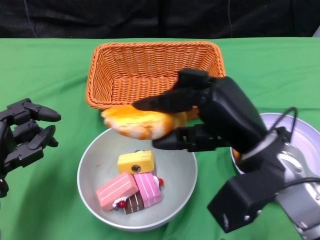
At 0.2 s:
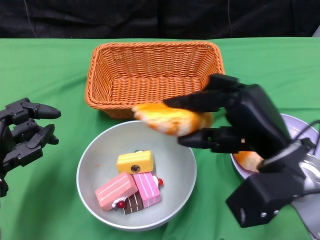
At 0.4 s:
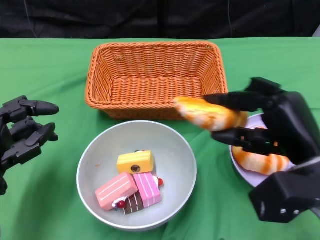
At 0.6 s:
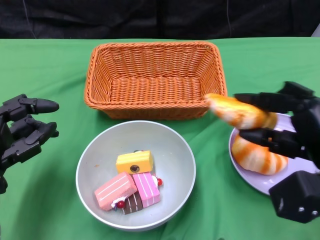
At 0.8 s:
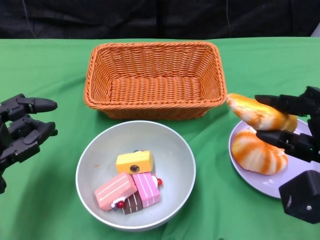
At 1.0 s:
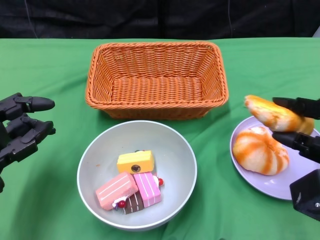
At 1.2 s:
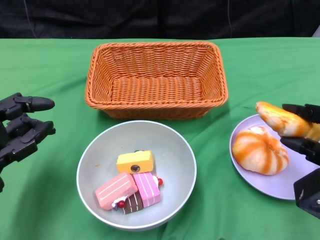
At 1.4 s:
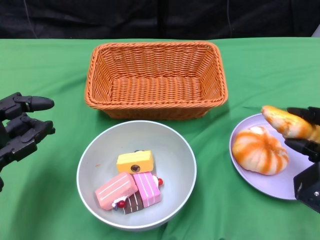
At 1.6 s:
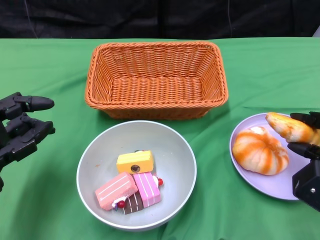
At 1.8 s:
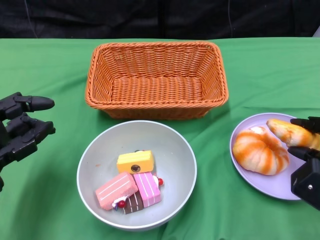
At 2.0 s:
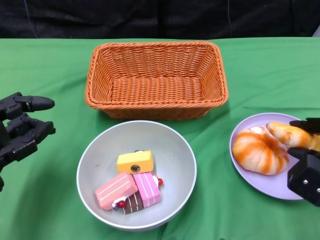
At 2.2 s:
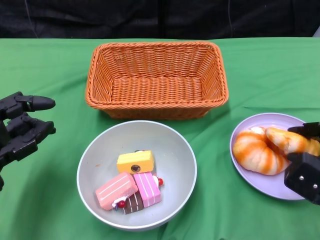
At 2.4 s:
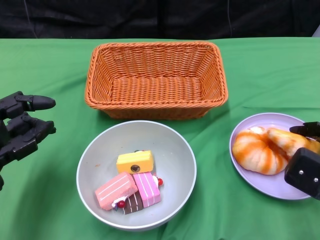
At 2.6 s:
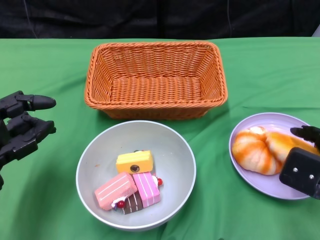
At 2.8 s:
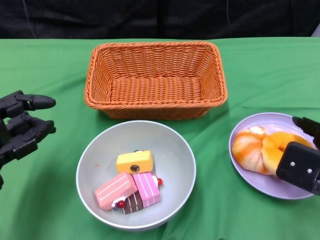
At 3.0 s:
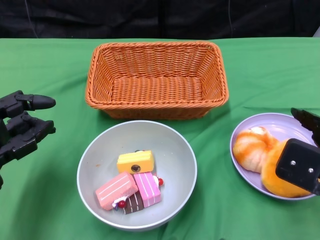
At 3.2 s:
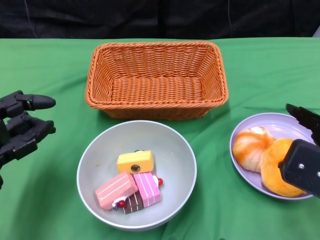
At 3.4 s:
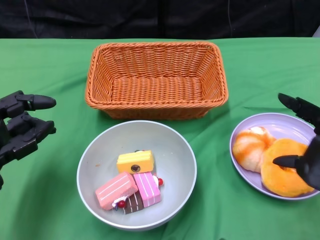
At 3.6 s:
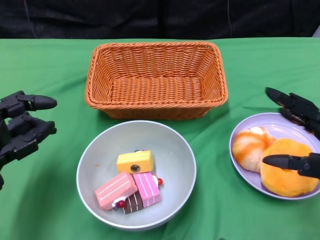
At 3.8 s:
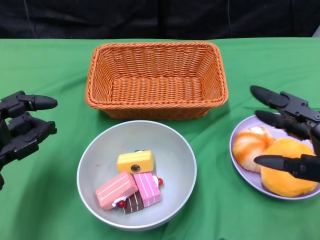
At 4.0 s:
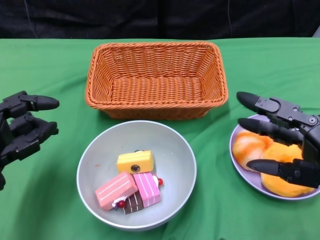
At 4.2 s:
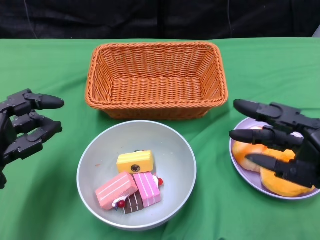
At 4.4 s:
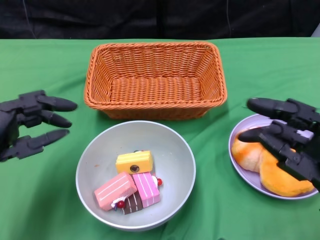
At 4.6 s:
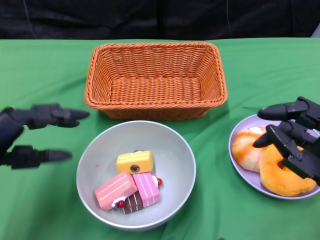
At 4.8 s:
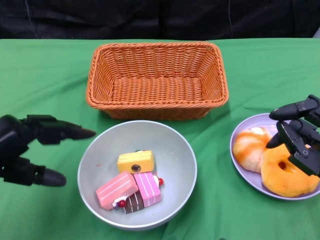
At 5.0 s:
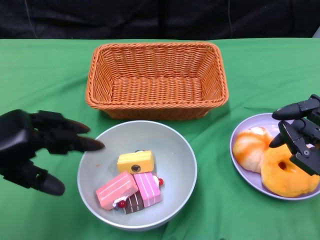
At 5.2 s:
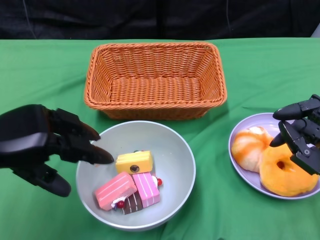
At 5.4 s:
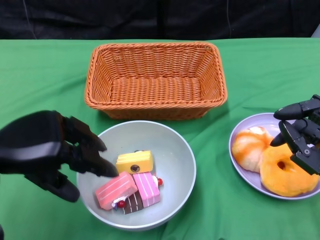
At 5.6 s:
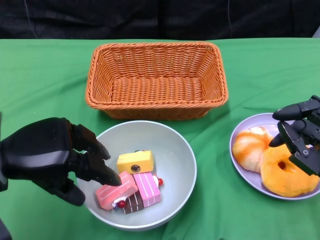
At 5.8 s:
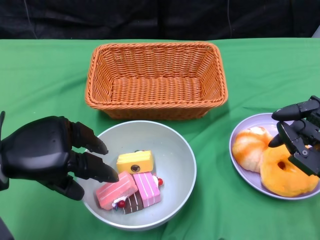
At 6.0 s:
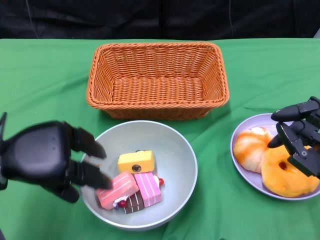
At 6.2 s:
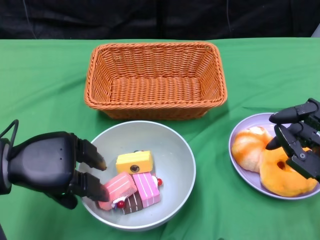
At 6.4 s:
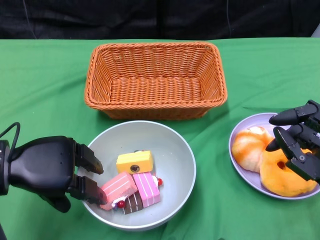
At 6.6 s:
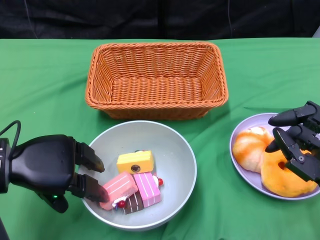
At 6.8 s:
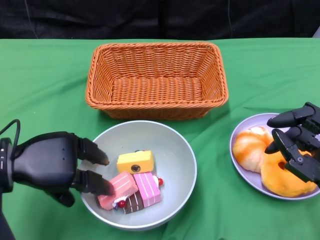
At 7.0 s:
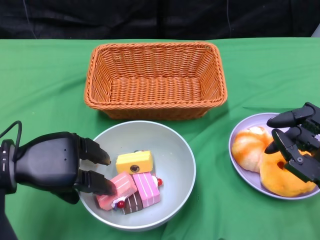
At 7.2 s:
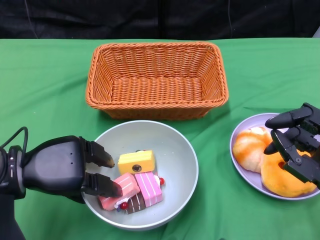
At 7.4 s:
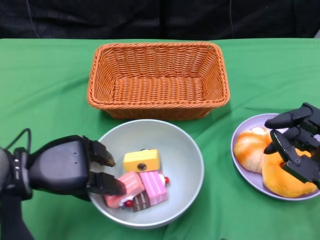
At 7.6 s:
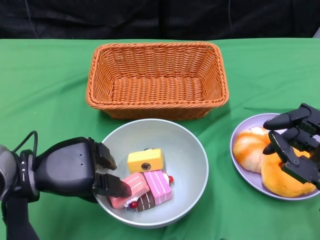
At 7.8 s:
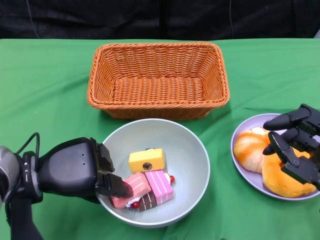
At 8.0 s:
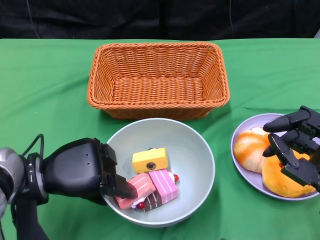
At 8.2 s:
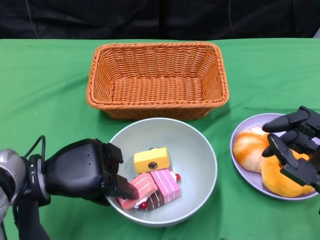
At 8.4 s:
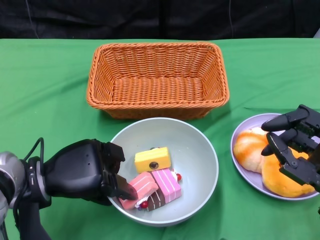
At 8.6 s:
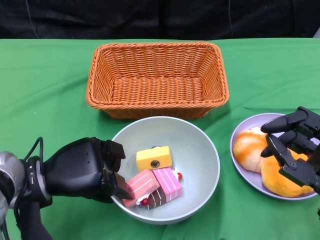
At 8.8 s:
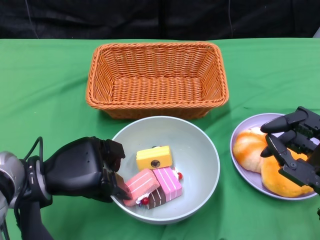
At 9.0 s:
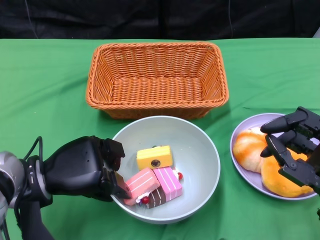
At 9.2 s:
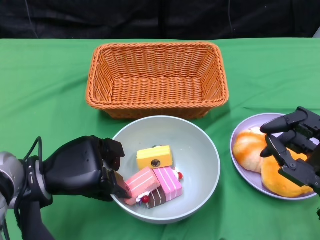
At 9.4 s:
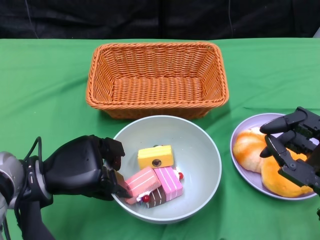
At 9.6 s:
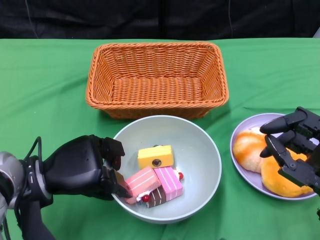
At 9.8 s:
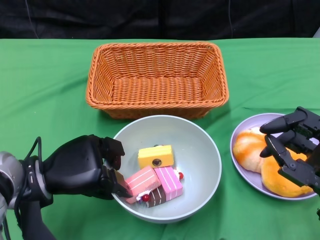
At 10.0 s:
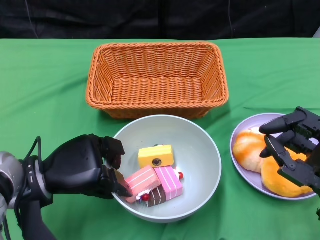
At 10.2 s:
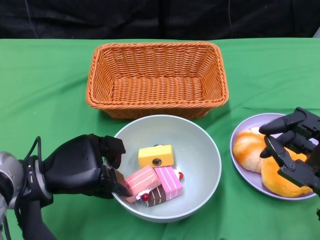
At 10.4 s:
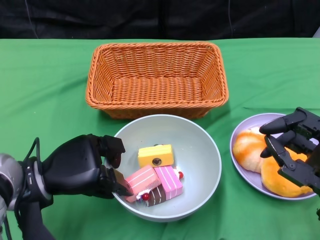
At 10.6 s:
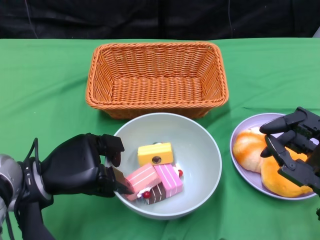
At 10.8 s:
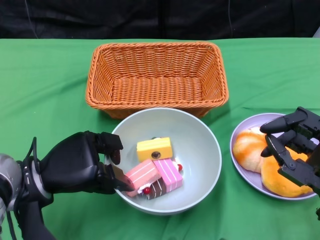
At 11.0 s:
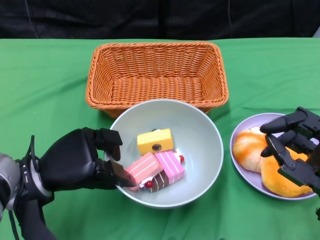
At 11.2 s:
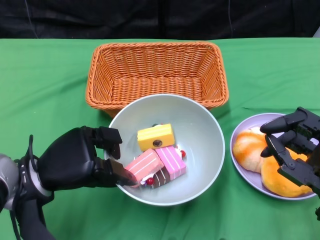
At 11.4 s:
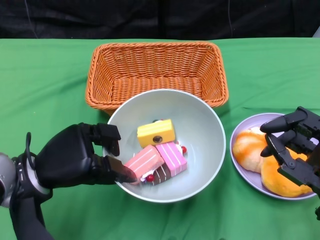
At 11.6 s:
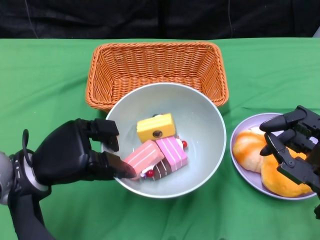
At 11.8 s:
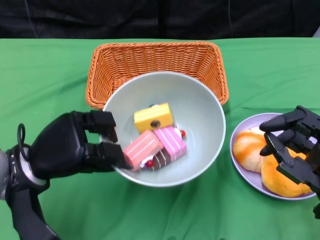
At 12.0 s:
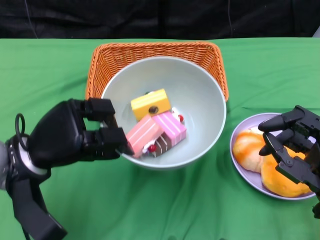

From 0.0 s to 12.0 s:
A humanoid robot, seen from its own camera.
Step, from 0.0 s to 3.4 s: Pick up the bread with the right gripper and place it on the plate.
Step, from 3.6 s to 9.6 s: Grasp the bowl with the left gripper.
From 0.0 s to 1.6 s: The right hand shifts approximately 15 cm to the right and downward.
From 1.6 s to 3.0 s: The right hand shifts roughly 5 cm upward.
From 6.0 s to 7.6 s: The left hand moves downward, roughly 5 cm.
From 7.6 s to 9.0 s: The hands move only a little.
From 9.0 s to 10.4 s: Both hands stay about where they are.

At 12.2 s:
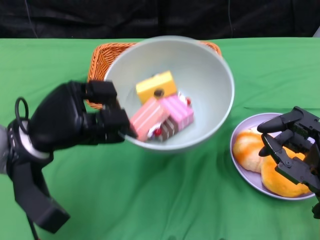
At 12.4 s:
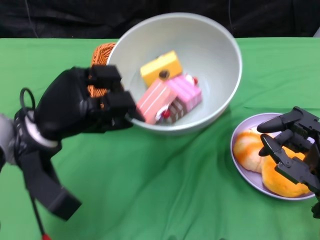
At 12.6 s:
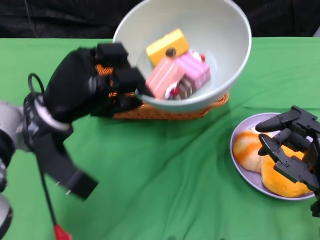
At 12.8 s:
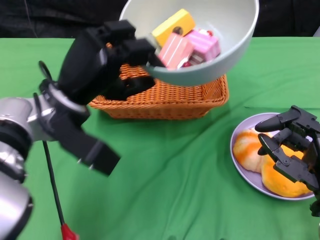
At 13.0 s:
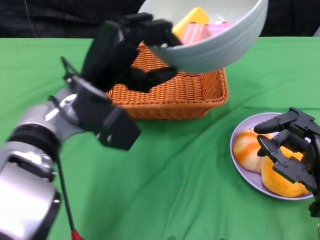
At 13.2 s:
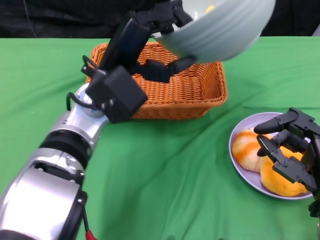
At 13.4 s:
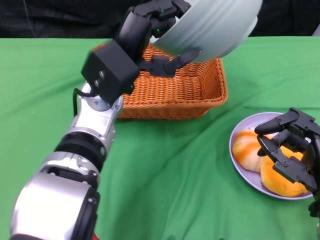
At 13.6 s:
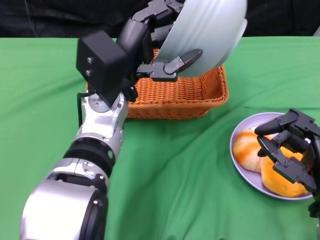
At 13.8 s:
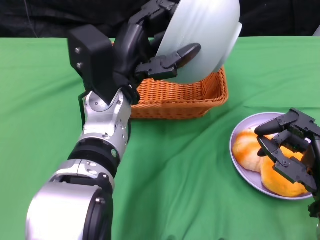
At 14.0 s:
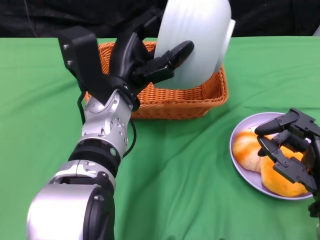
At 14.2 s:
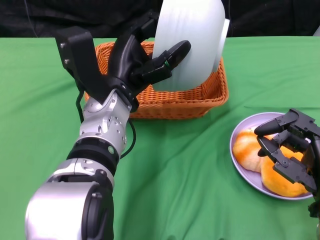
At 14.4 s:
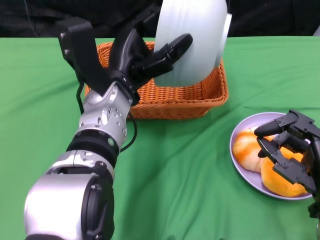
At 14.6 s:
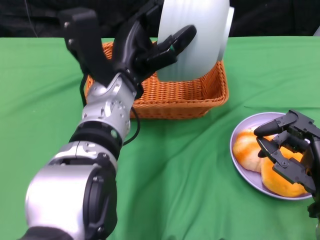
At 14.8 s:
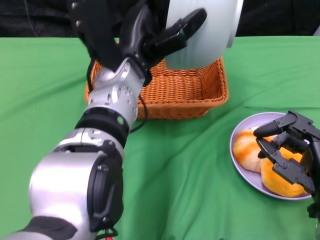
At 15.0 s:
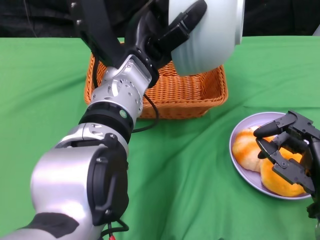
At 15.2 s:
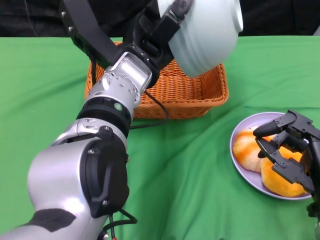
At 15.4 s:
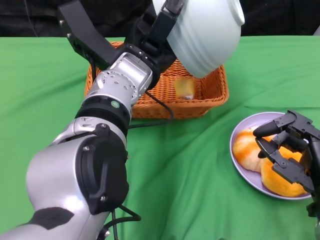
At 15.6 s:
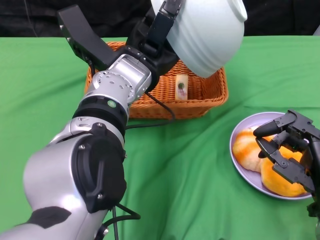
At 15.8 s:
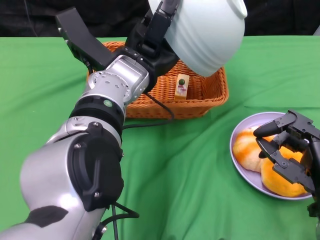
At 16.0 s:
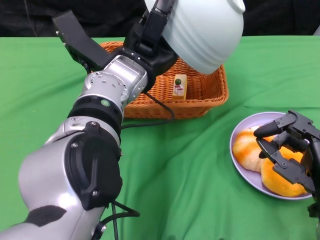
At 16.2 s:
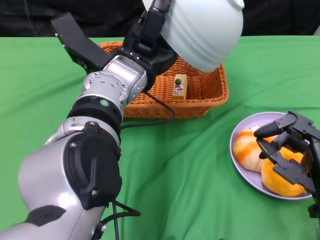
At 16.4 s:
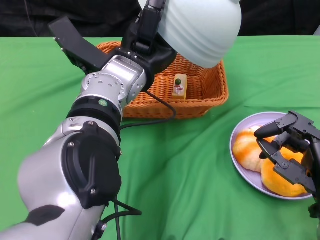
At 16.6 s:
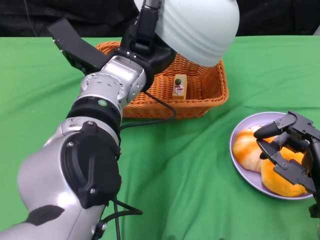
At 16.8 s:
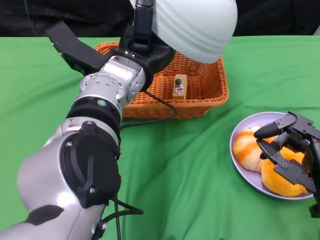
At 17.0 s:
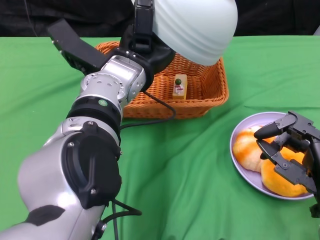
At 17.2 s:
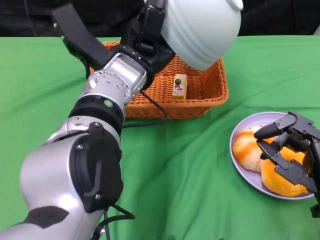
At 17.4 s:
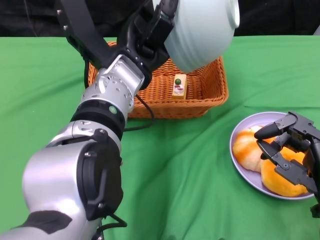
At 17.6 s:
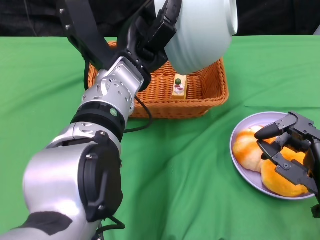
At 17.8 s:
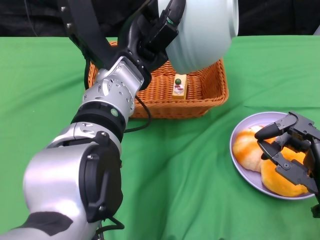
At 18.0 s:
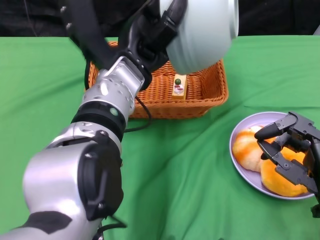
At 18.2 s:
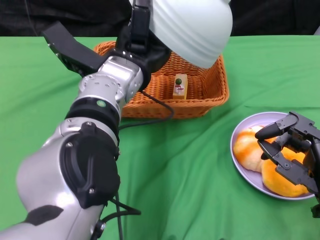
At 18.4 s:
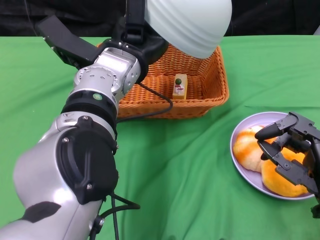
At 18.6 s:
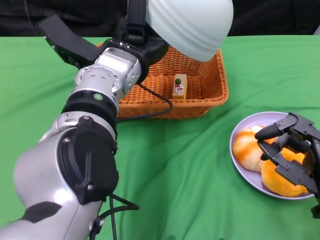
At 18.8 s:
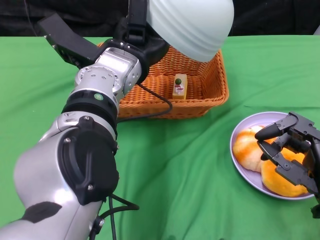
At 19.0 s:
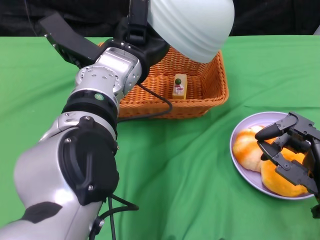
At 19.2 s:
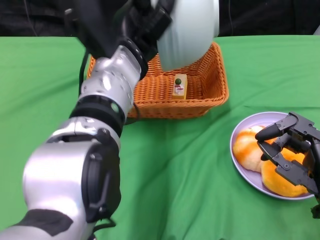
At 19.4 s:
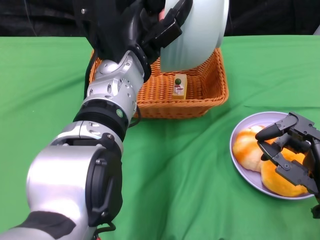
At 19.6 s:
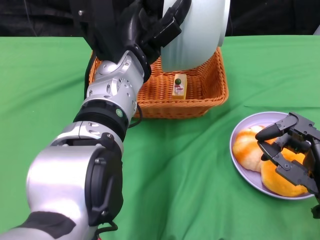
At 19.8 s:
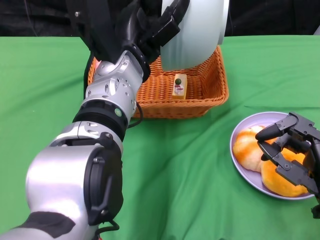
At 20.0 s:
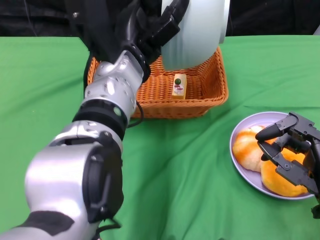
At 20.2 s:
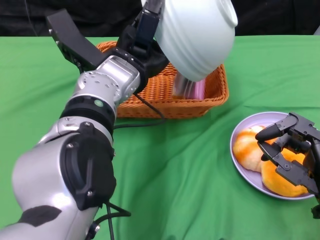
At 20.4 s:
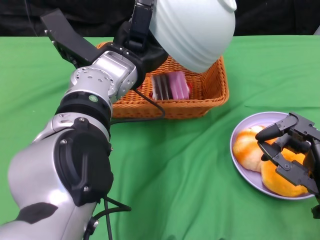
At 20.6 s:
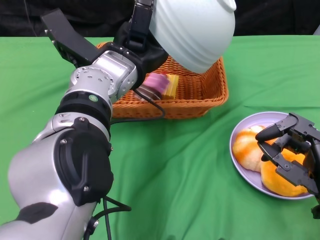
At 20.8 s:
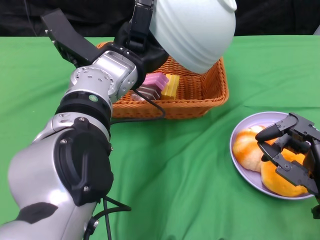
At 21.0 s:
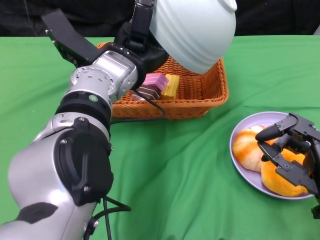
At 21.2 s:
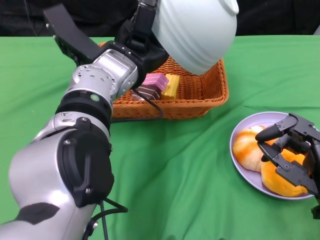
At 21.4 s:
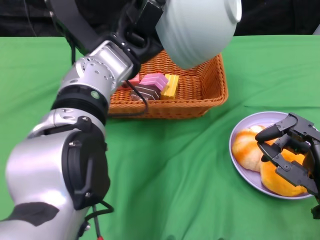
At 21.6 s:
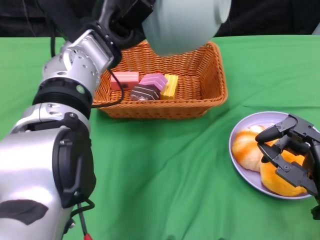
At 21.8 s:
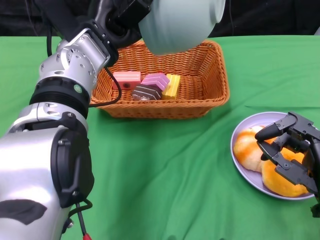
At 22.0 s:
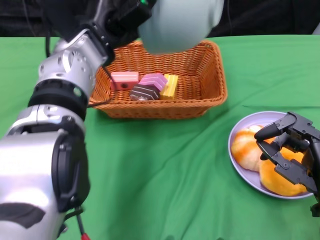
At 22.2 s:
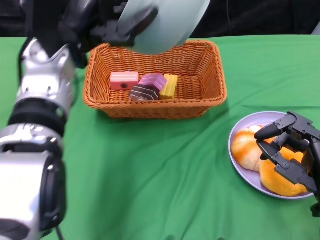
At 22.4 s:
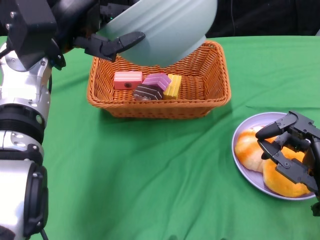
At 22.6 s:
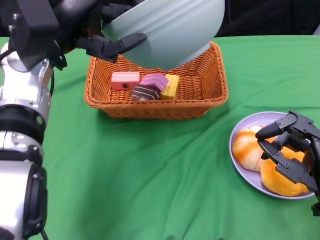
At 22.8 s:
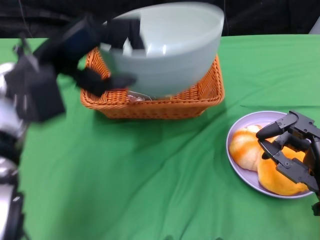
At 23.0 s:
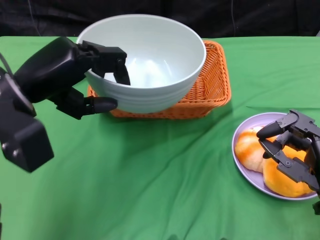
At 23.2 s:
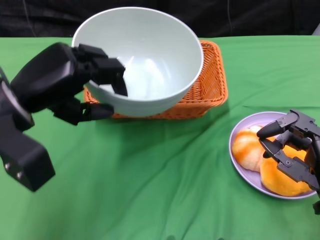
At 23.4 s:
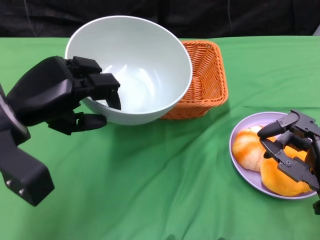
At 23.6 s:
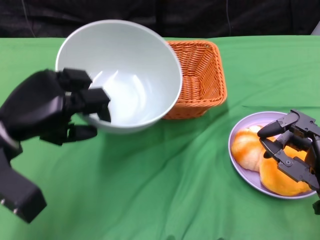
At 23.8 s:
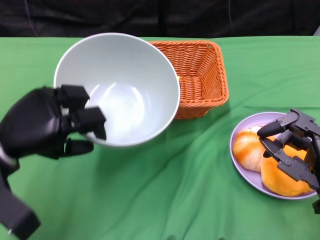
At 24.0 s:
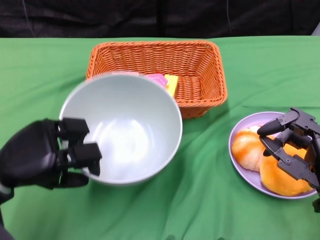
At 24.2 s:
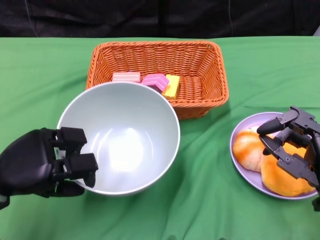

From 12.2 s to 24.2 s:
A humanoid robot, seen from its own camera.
Step, from 12.2 s to 21.8 s: Pour the cake into the basket with the left gripper.
From 12.2 s to 13.8 s: The left hand travels to the right by roughly 10 cm.
From 21.2 s to 22.6 s: The left hand travels to the left by approximately 10 cm.
From 22.6 s to 24.2 s: The left hand travels downward, backward and to the left by roughly 20 cm.
